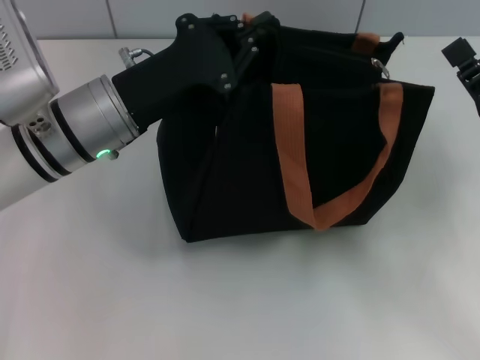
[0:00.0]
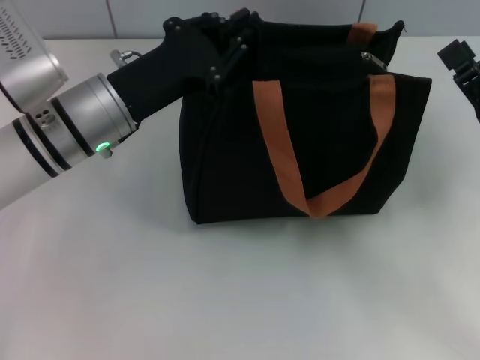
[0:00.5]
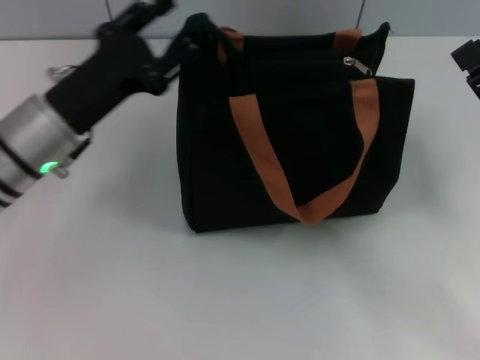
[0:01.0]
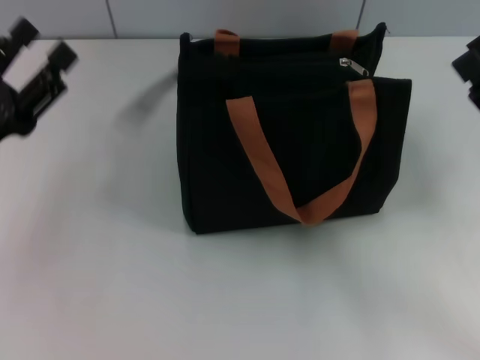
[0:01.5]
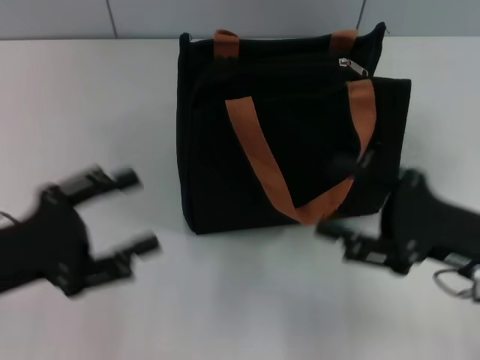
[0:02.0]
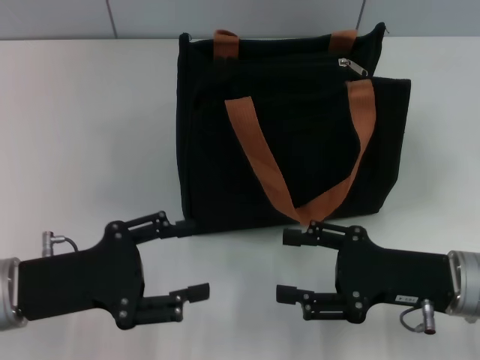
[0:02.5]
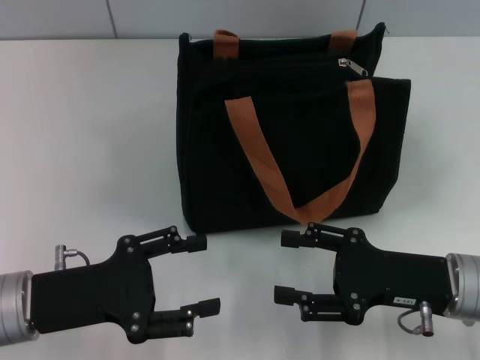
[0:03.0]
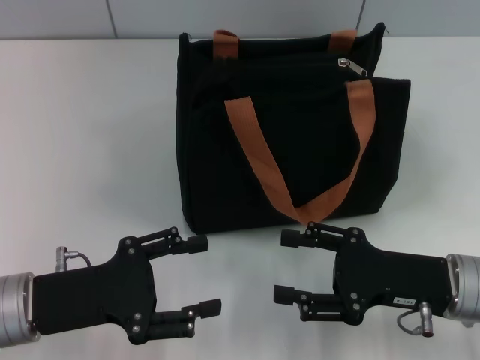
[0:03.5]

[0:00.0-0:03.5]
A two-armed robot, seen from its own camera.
Step, 0:00.0 to 0:01.0: Grab the zipper with your left hand.
0:00.0 to 0:02.0: The right gripper opens its fingers. Meanwhile the left gripper heads to the left and backward, covering about 20 cm, and opens up.
0:02.0 to 0:03.5: The left gripper ends up about 5 cm from where it was.

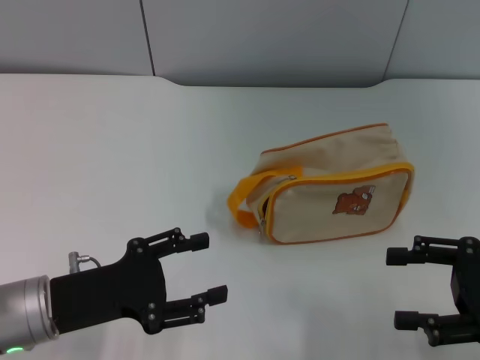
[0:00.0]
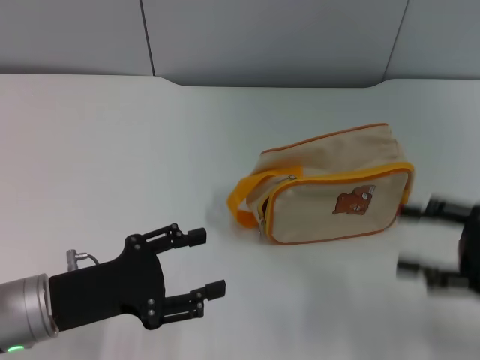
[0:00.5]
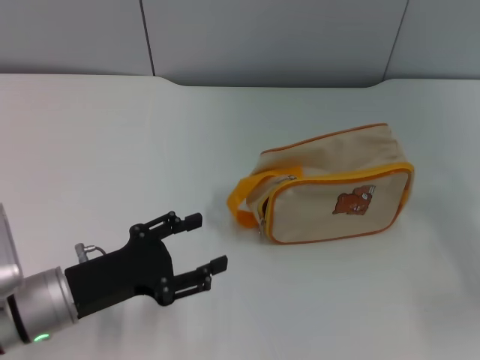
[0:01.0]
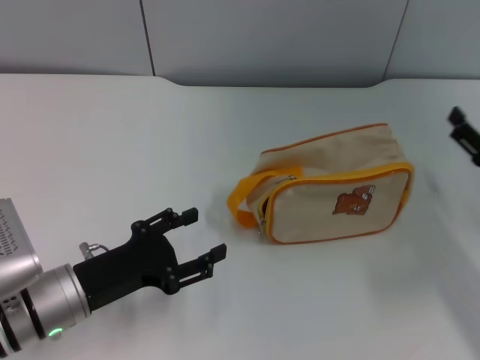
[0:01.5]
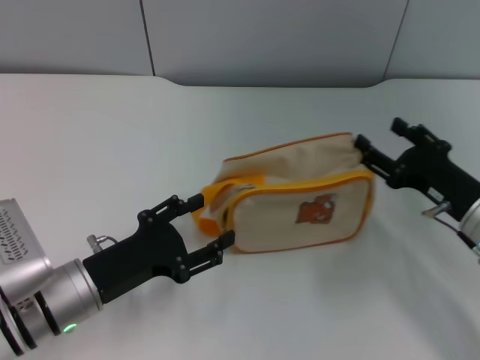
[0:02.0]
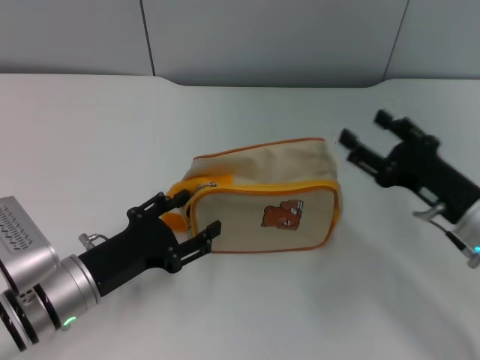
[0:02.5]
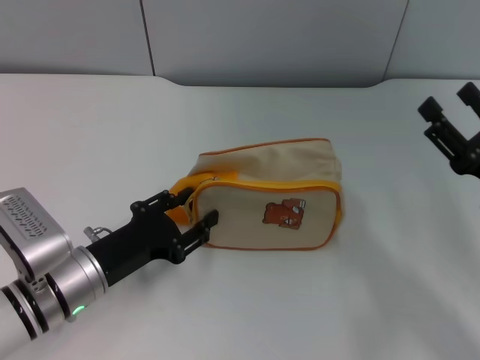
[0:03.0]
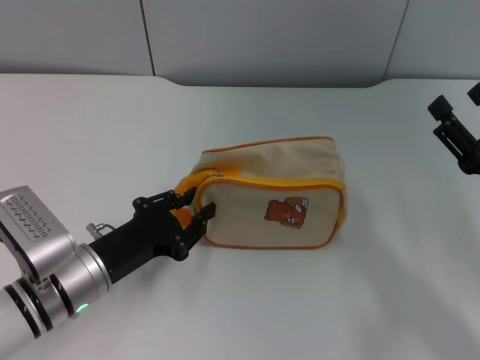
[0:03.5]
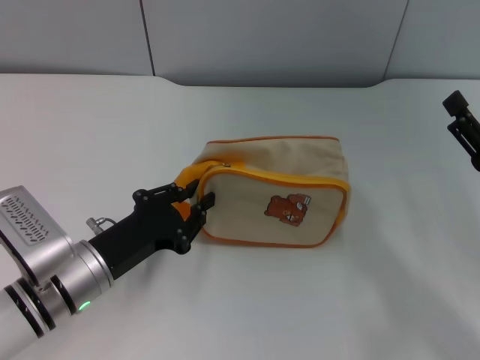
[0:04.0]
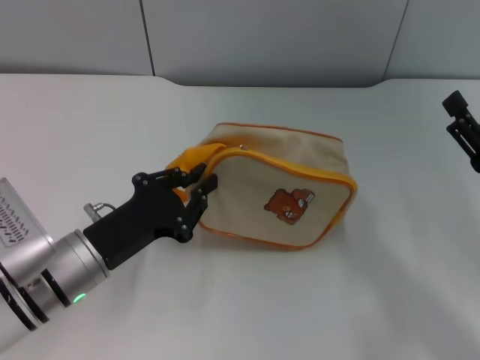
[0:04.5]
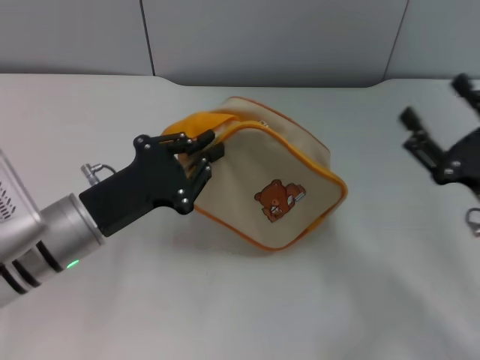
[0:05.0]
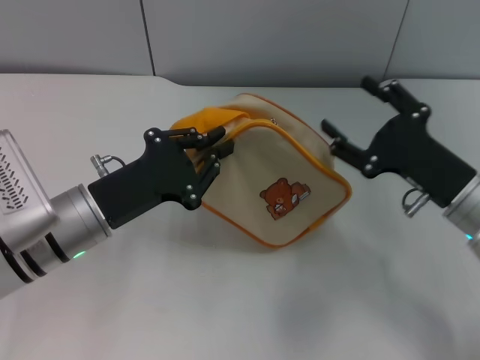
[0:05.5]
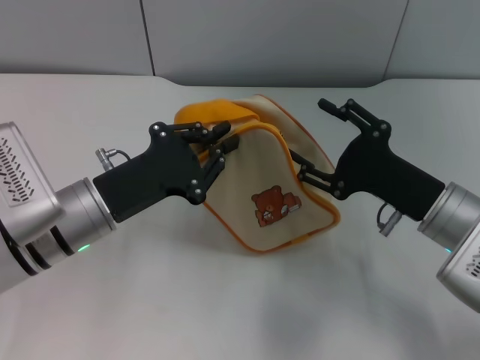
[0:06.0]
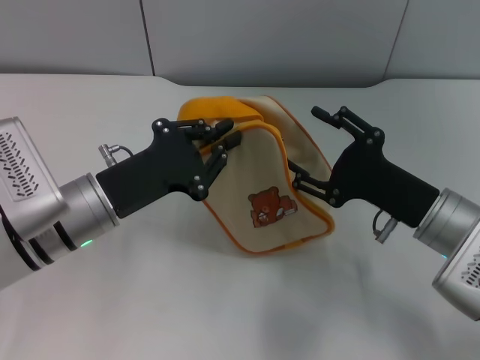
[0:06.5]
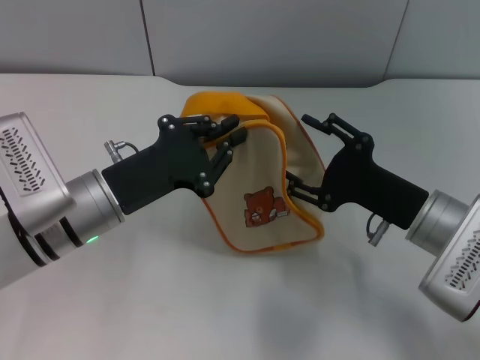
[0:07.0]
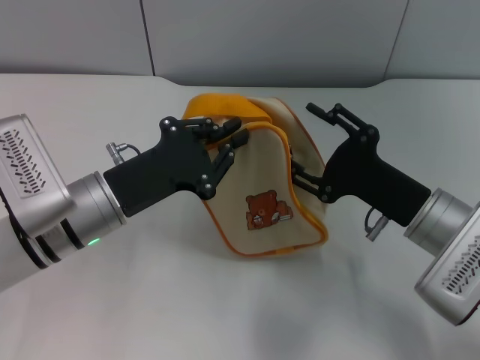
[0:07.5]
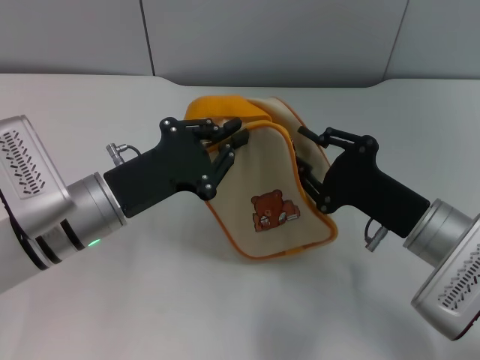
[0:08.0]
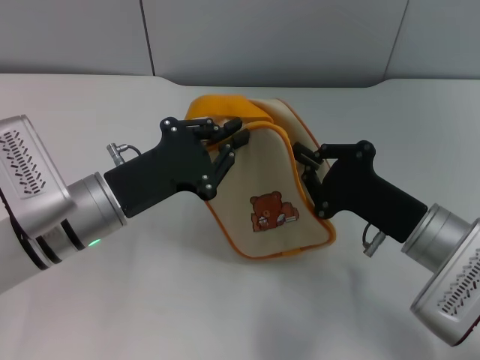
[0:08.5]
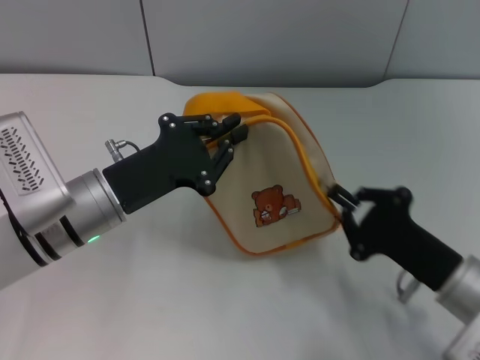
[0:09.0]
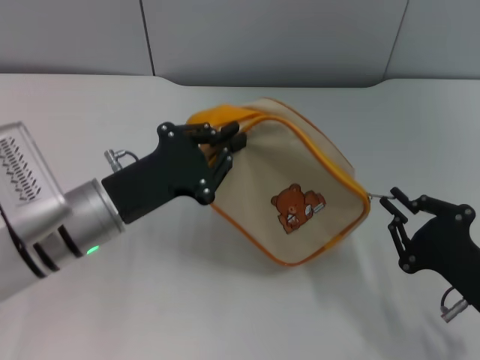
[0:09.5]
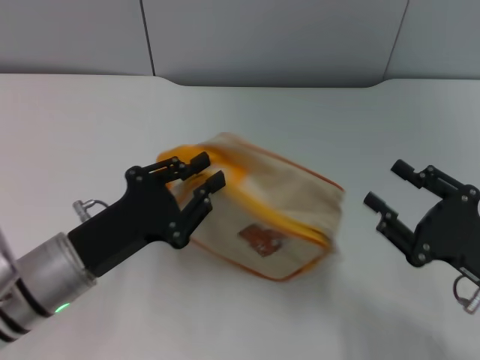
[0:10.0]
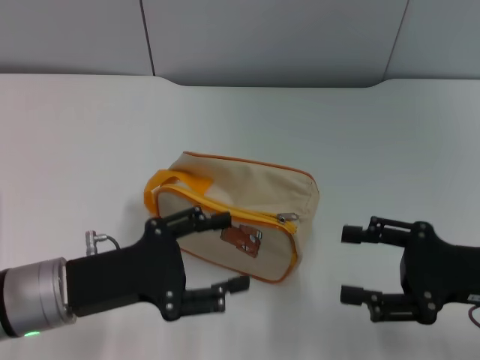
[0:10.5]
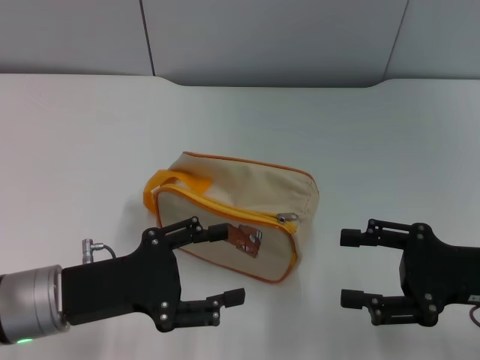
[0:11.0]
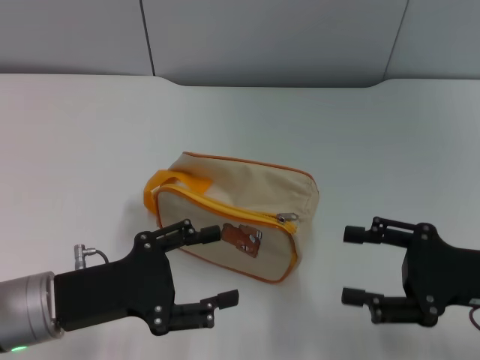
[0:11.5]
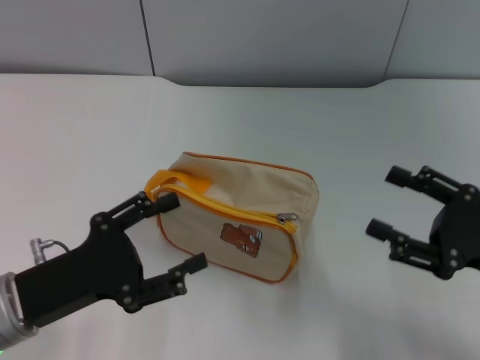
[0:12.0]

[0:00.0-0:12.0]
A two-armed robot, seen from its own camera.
Step, 0:00.0 to 0:04.5: Pick up the bag with left gripper.
Step, 0:05.0 to 0:09.5: Unzip the zipper of bag with right gripper.
0:00.0 to 0:02.0: The right gripper is displaced forward, downward and to the left by approximately 10 cm.
0:02.0 to 0:04.0: The left gripper closes, while the right gripper moves backward, about 5 cm.
0:04.0 to 0:06.0: The right gripper goes some 10 cm to the left. The left gripper moves upward, about 5 cm.
0:06.0 to 0:08.0: The grippers make only small movements.
0:08.0 to 0:10.0: The left gripper moves backward, some 5 cm; the right gripper shifts some 10 cm to the right and backward, and closes and opens again.
0:10.0 to 0:12.0: The left gripper shifts by approximately 5 cm, and opens up. The right gripper opens.
